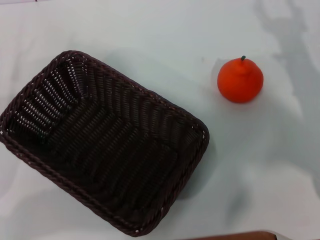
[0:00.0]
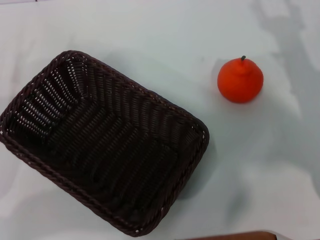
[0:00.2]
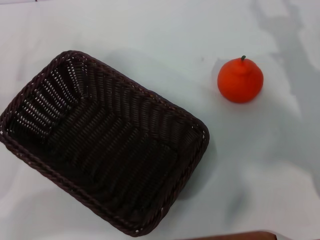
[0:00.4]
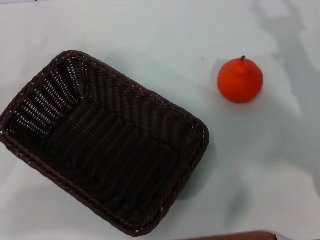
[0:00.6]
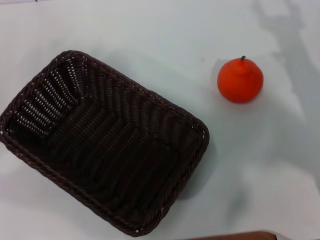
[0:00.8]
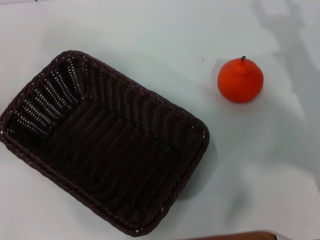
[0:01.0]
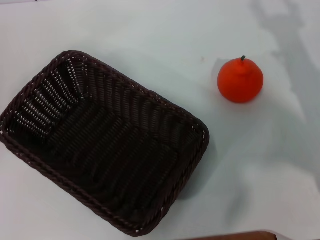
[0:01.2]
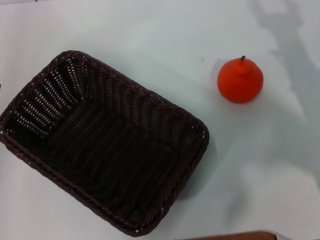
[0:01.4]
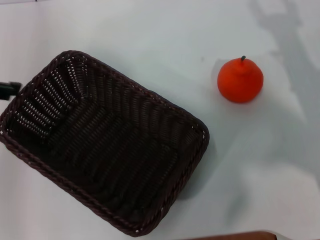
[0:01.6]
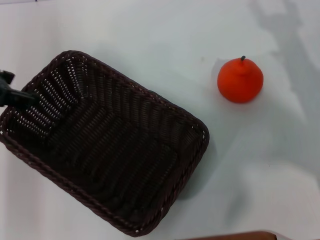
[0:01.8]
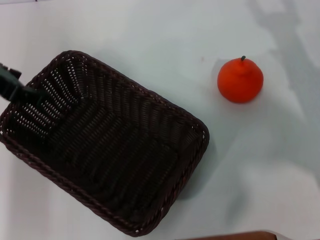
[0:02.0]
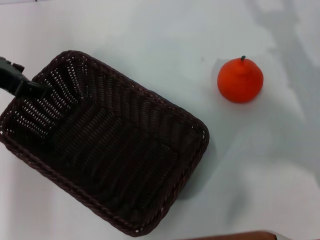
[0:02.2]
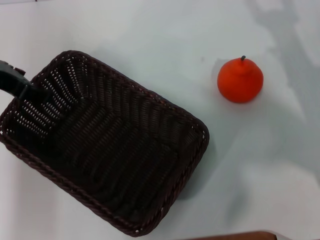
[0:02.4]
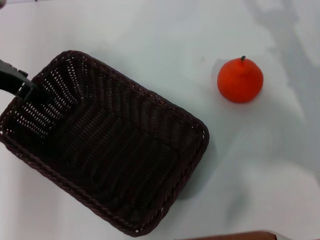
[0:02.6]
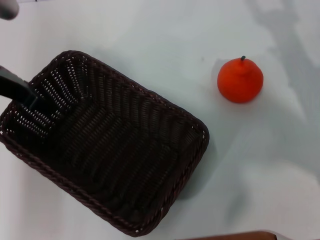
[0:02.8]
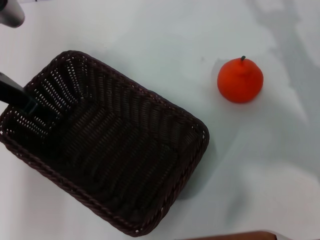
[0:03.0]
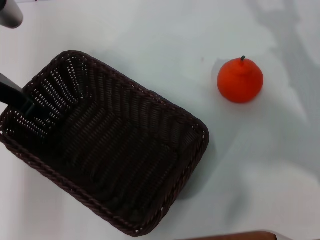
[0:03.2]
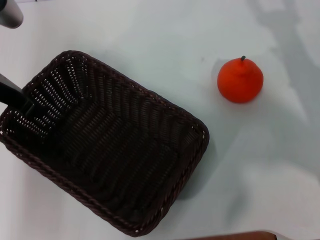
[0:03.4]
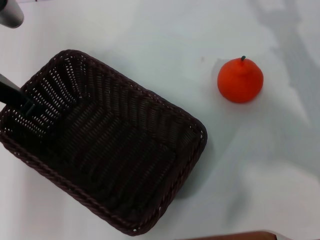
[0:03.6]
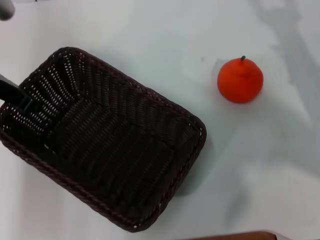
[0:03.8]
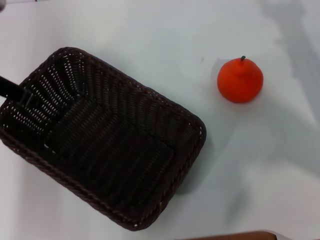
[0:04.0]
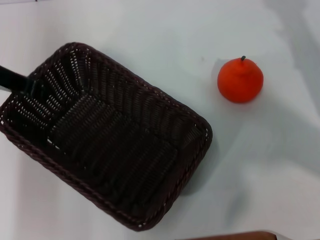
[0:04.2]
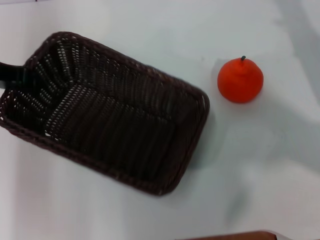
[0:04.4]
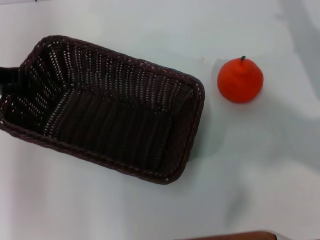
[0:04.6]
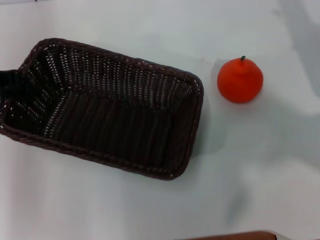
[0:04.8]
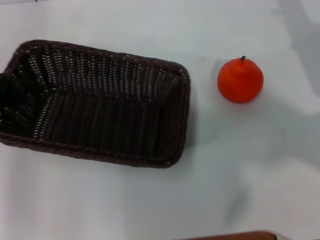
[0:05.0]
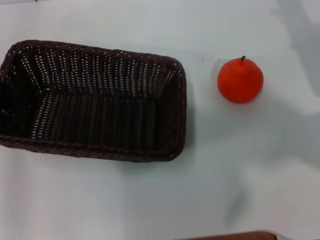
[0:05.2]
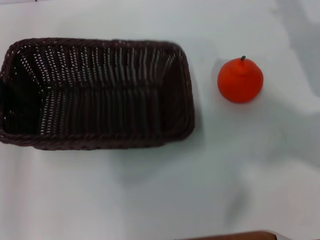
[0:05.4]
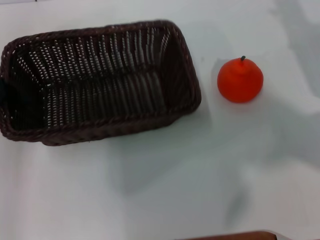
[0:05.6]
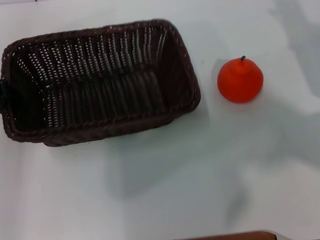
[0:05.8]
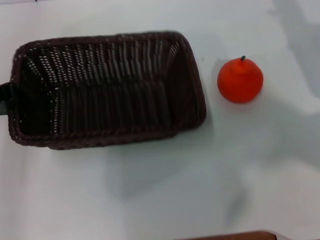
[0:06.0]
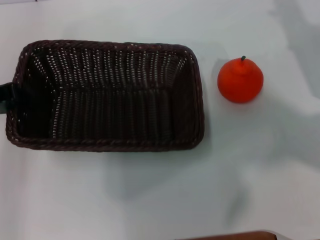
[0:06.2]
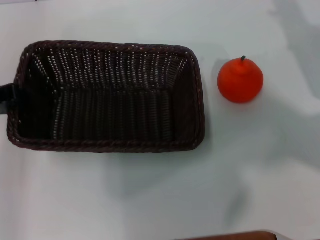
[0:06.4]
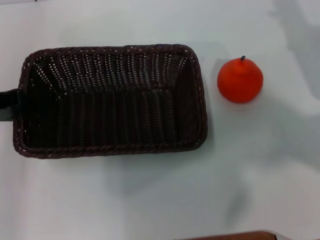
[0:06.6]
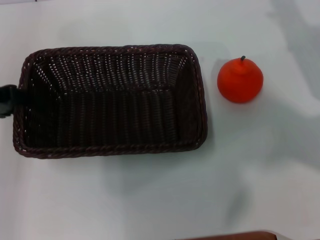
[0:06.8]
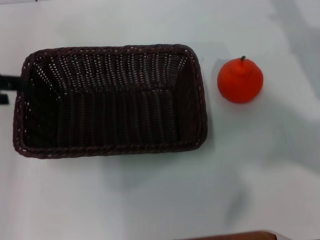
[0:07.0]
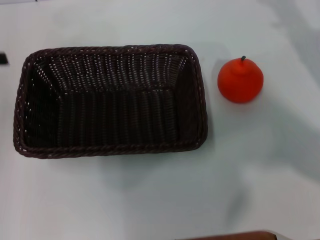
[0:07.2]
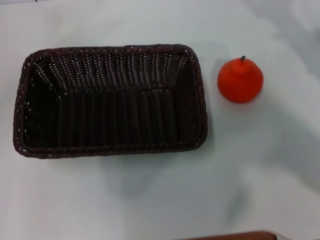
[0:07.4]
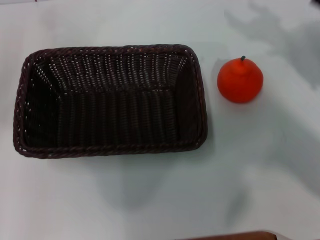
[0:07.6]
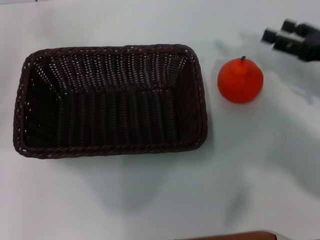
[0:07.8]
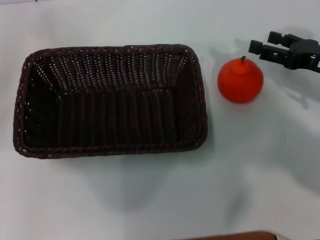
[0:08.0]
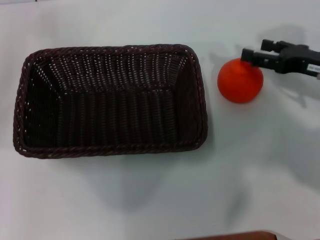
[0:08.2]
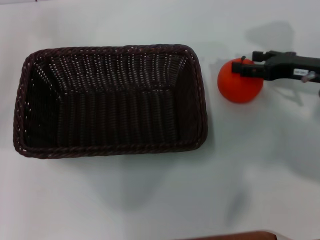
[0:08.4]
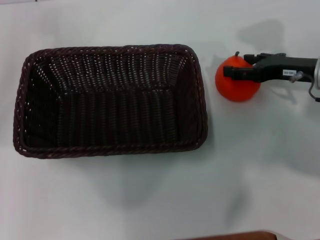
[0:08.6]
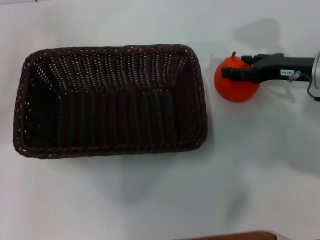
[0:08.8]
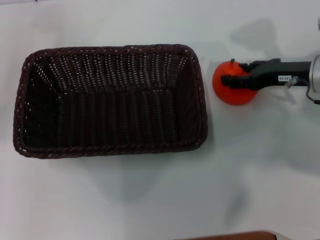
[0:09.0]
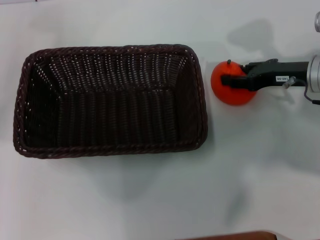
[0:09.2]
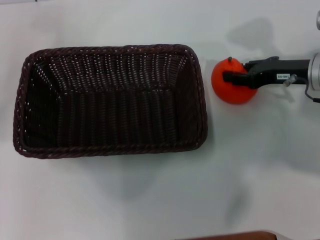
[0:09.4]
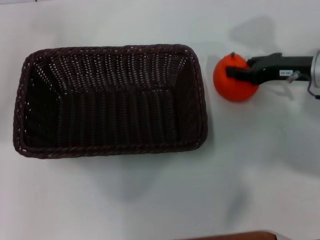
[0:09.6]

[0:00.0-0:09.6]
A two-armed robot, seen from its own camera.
Task of the whole recording: the left gripper pick up the black basket and place it horizontally in the middle of the table, the right gripper pick up the orange and place it into the black basket.
Step, 0:00.0 to 0:04.0: Pick up the dark basket with the left gripper.
Step, 0:04.4 to 0:07.0: Place the dark basket in the center of view with the left gripper.
0:00.0 to 0:01.6: The left gripper moves upward, about 20 cm.
0:01.6 to 0:03.2: The left gripper travels to the right and downward by about 10 cm.
0:03.2 to 0:04.8: The right gripper is displaced forward by approximately 5 cm. Meanwhile the left gripper closes up.
0:04.8 to 0:06.4: There are only small adjustments of the grippers.
0:06.4 to 0:08.0: The left gripper shifts roughly 10 cm to the left, and opens its fingers.
0:08.0 to 0:09.6: The right gripper changes place by roughly 5 cm, and closes.

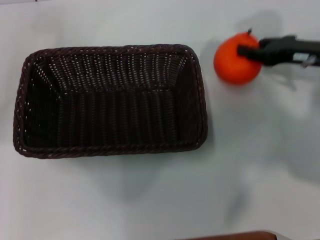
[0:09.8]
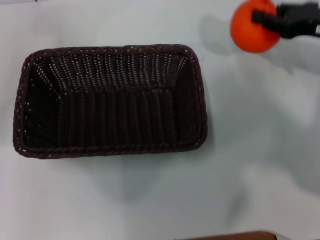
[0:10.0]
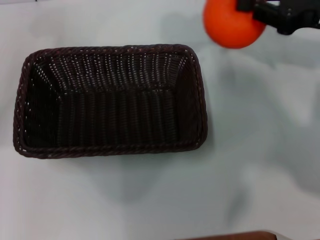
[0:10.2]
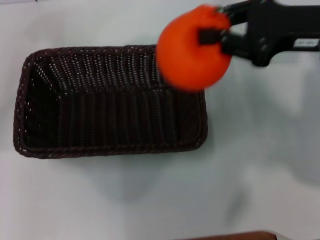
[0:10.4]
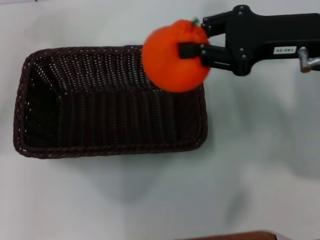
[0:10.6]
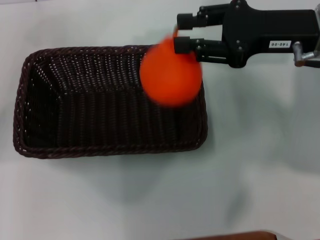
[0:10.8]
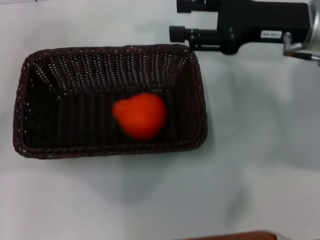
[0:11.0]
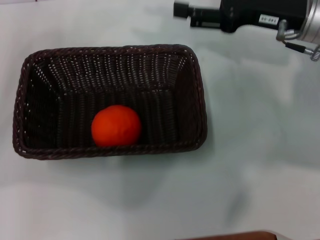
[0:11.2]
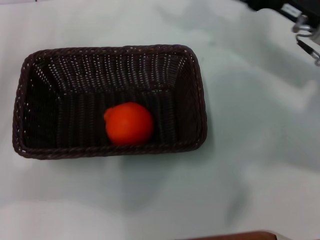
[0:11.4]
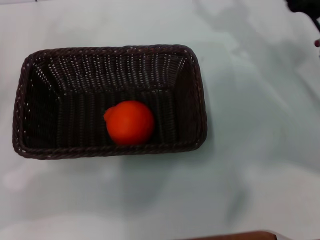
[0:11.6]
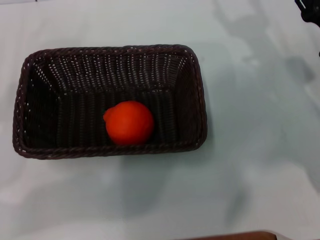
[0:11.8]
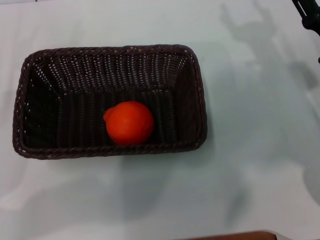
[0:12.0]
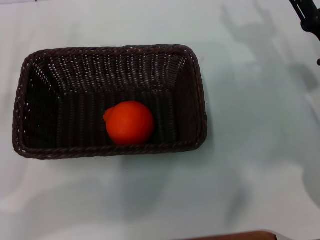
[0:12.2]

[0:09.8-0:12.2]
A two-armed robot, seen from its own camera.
Task of the whole recording: the left gripper pick up the black basket and place it horizontally in the middle of the table, the right gripper pick up the orange and place it into the black basket.
Step, 0:10.0 to 0:10.8: Place the orange into the dark basket with the right gripper.
0:09.8 to 0:11.0: The right gripper travels to the left and upward by about 10 cm.
0:11.0 to 0:12.2: Both grippers travel together downward and backward, some 10 cm. The right gripper opens up.
